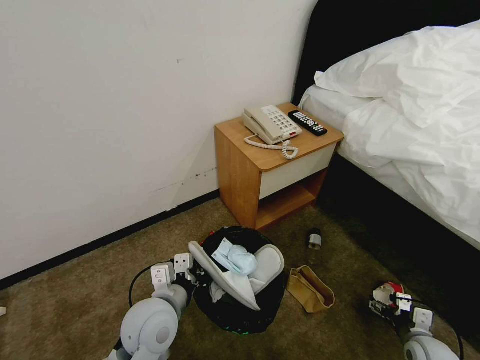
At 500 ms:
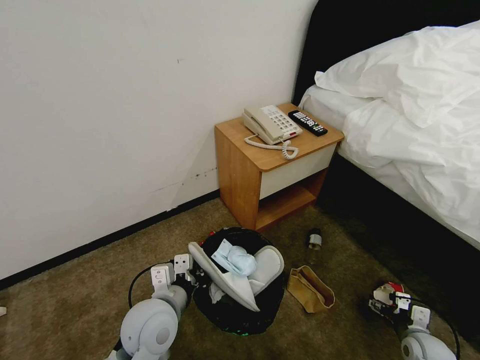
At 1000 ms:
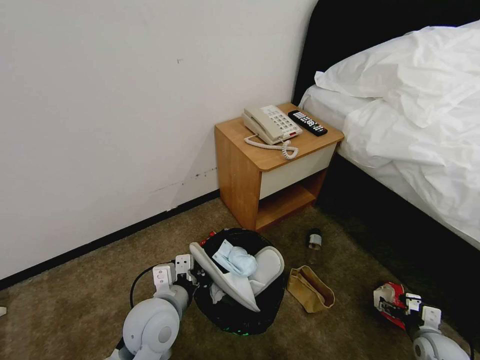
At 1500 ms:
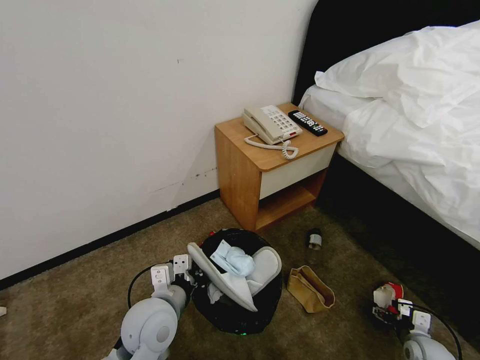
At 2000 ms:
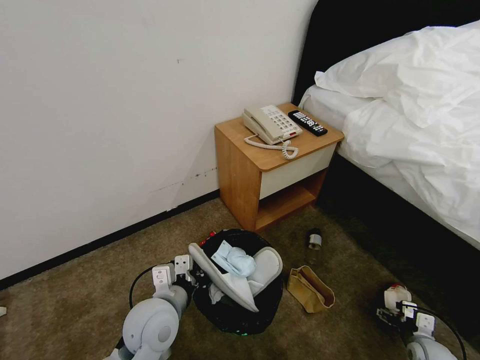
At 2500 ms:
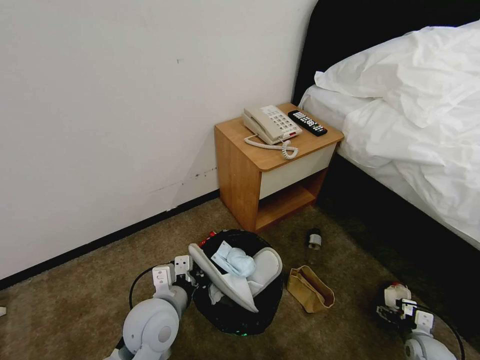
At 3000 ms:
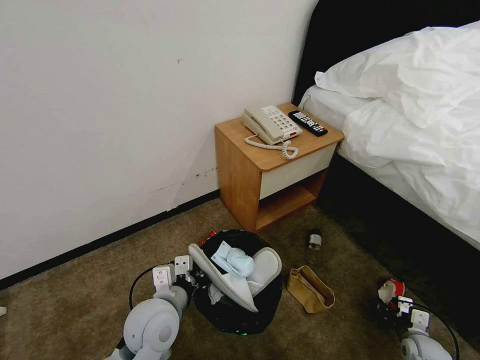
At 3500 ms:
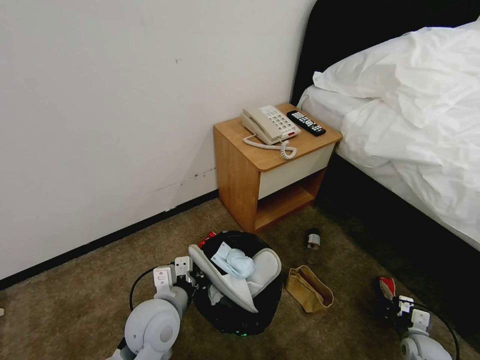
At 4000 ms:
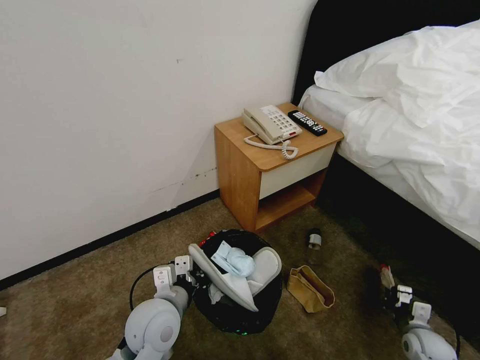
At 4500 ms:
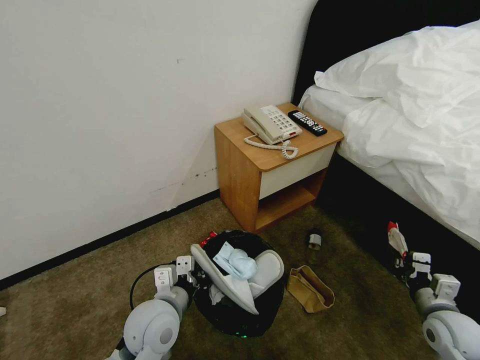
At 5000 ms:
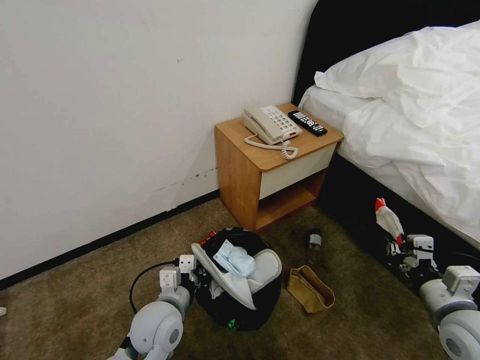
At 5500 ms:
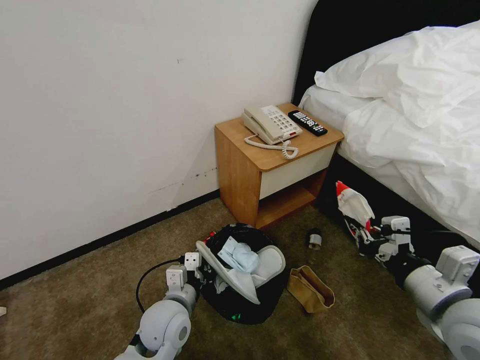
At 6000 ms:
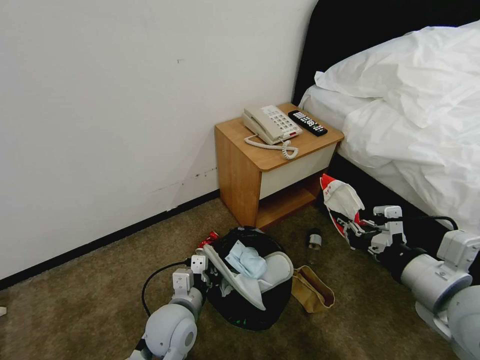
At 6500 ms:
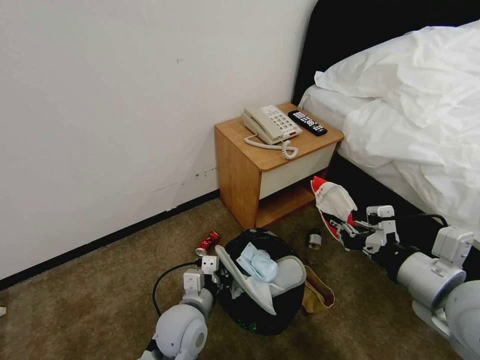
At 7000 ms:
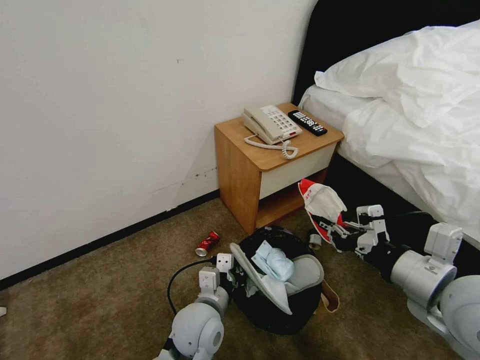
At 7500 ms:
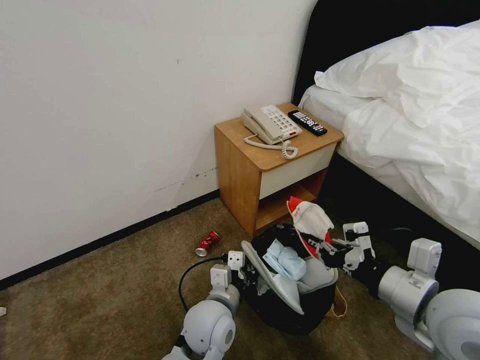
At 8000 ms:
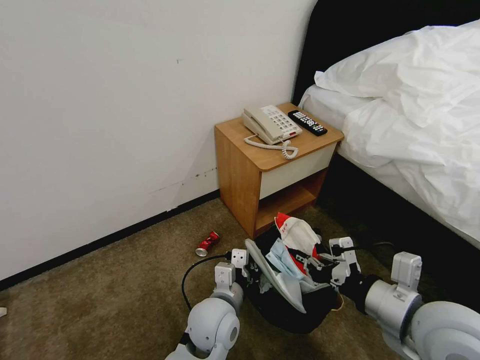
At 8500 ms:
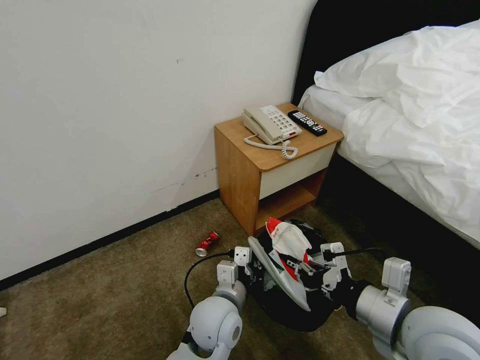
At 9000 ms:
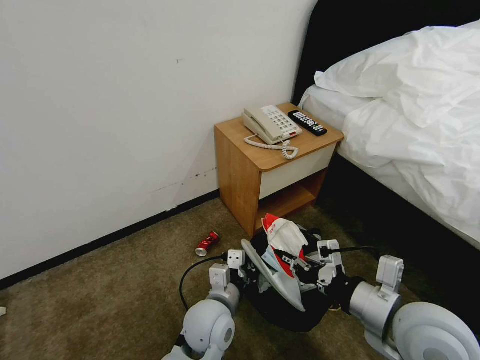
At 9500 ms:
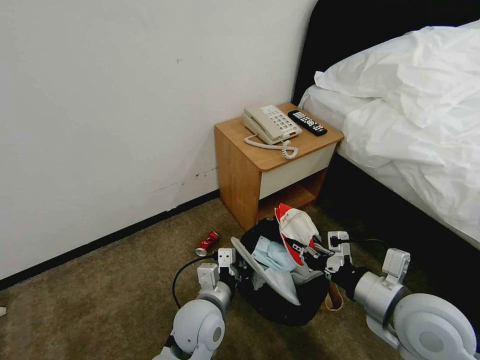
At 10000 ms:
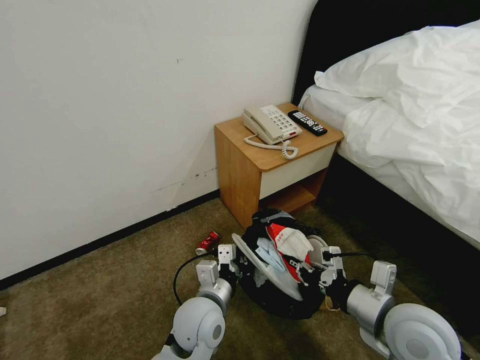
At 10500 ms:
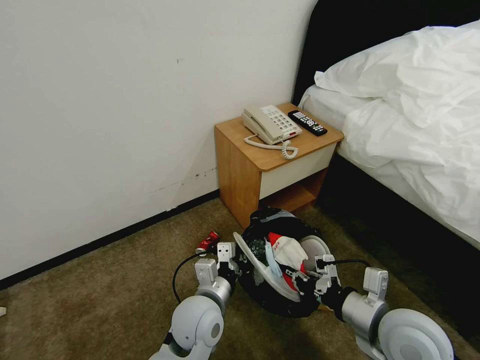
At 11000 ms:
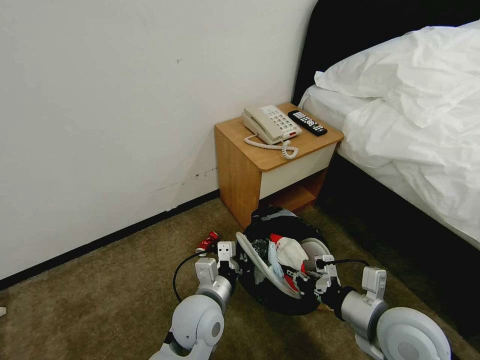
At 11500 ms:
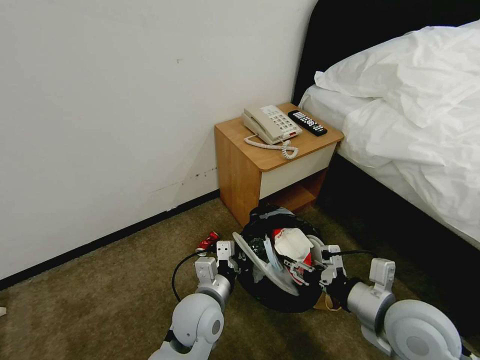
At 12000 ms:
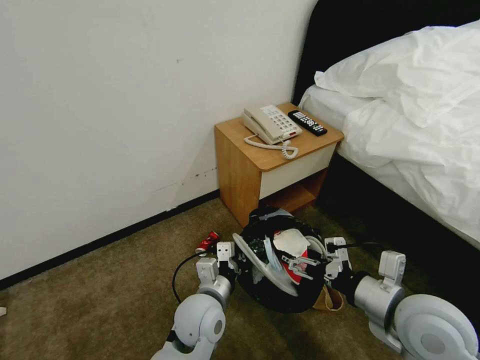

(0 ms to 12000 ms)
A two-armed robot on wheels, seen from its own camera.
Task of the whole recording: Pick up the trash bin, then pick up the garbage from the floor and place it into the trash bin.
0 ms - 2000 ms: The right gripper shifts by approximately 5 cm.
2000 ms - 4000 ms: The right gripper closes up.
4000 ms - 6000 ms: The right gripper shifts approximately 40 cm upward and to the left.
6000 ms - 8000 ms: The left gripper moves to the right, about 10 cm.
8000 ms - 10000 ms: The right gripper moves downward, about 5 cm.
10000 ms - 12000 ms: The right gripper opens up.

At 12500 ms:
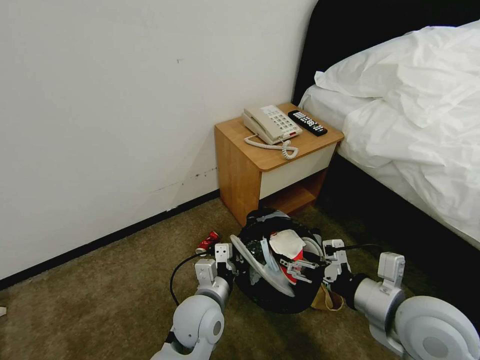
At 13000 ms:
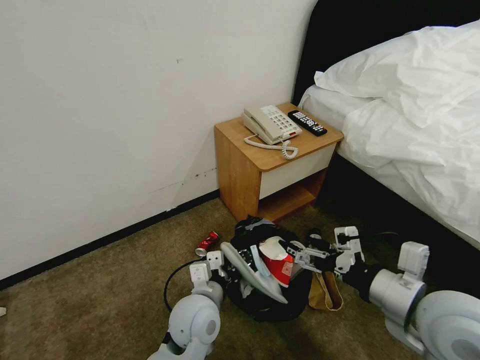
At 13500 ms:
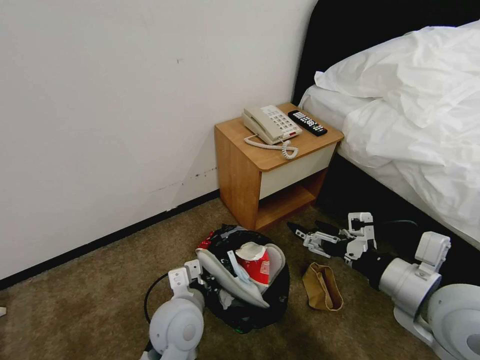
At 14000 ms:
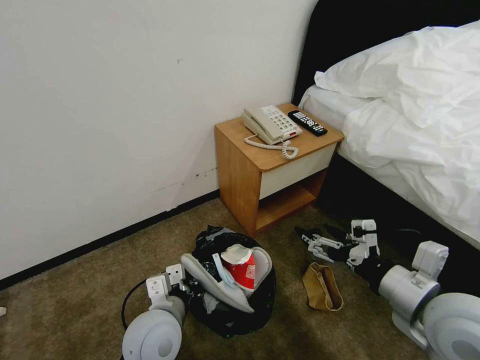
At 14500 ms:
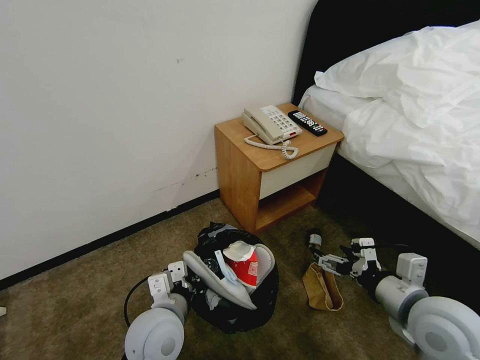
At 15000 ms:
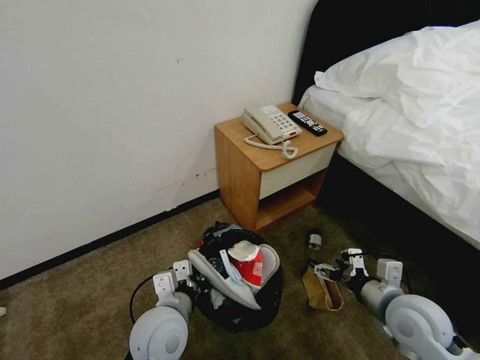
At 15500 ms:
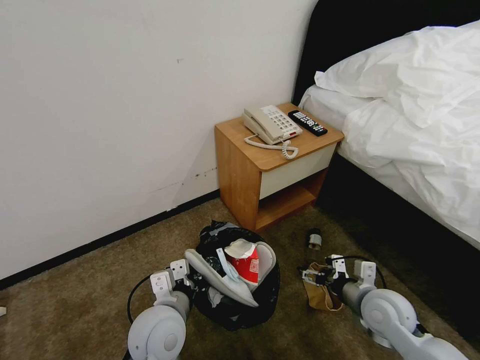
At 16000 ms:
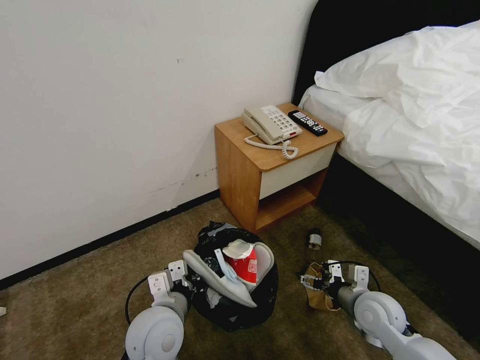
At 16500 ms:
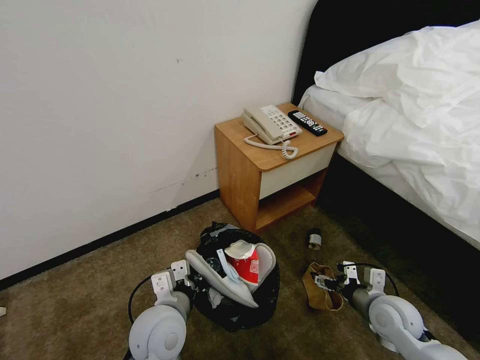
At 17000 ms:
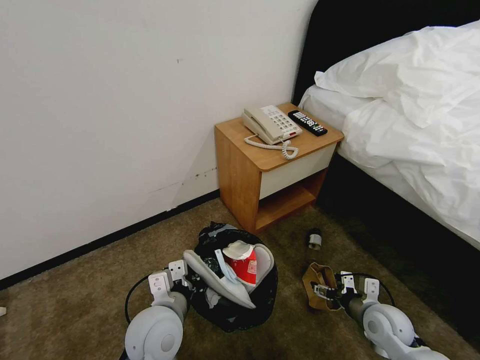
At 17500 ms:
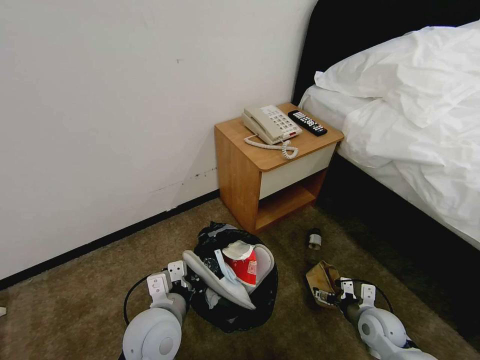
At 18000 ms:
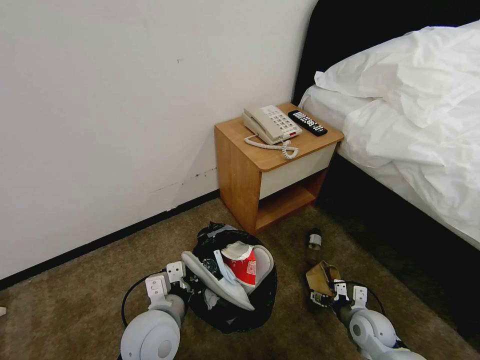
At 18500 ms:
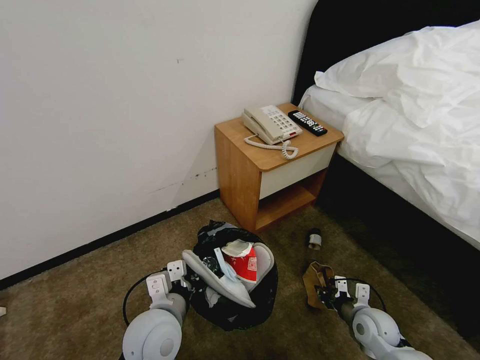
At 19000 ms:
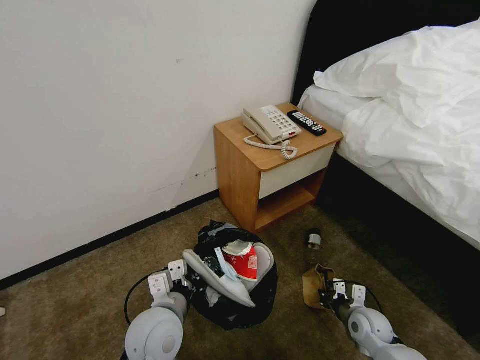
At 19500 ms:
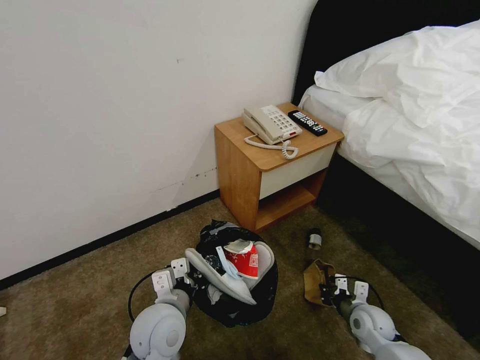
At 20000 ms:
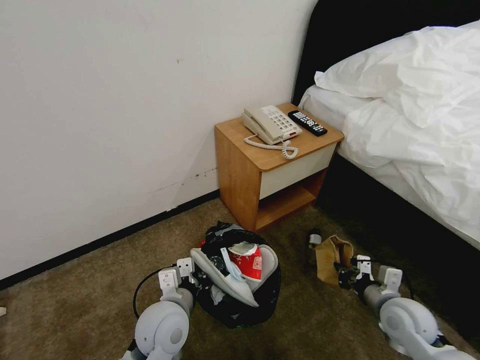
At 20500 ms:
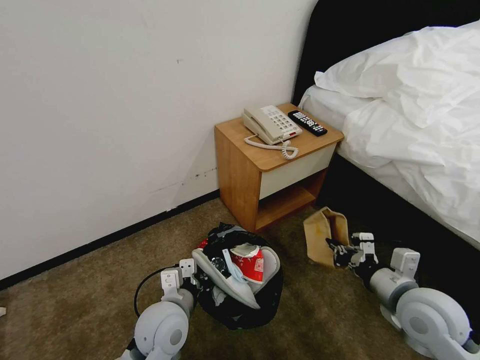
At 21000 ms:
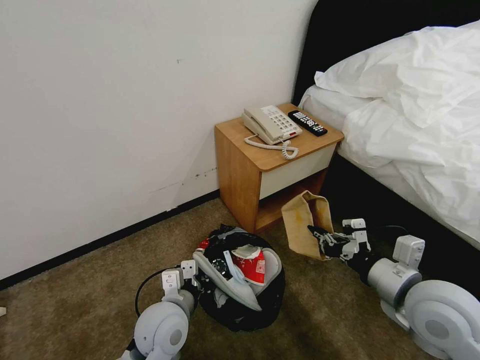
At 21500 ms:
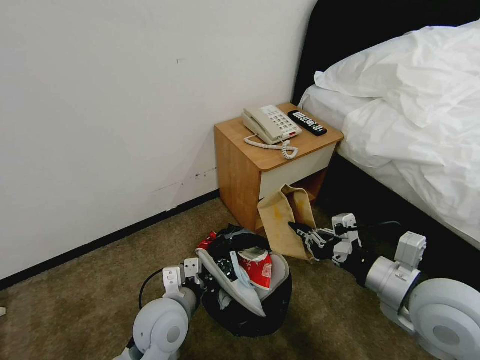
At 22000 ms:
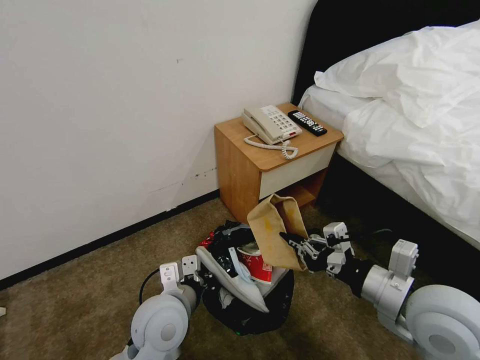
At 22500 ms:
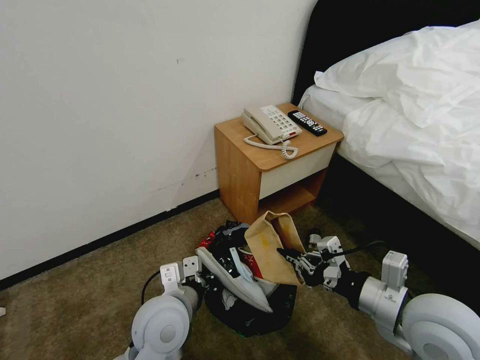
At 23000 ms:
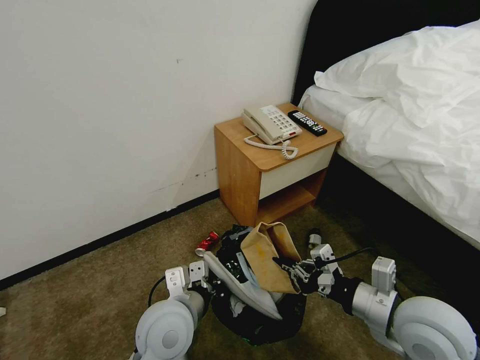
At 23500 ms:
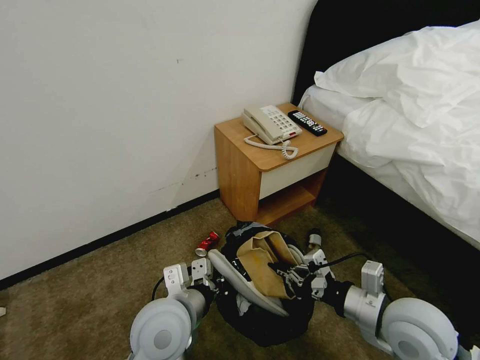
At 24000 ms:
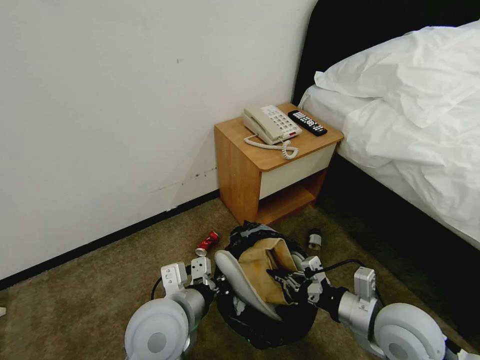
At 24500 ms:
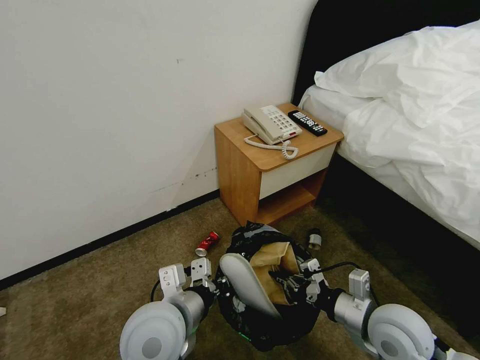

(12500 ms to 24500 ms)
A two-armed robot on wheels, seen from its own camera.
Task of the whole recording: Pick up the trash bin, then pick up the garbage from the floor and place it into the trash bin.
12500 ms - 14500 ms: The right gripper travels upward and back again, some 5 cm each way. The left gripper shifts about 5 cm to the left.
14500 ms - 16500 ms: The right gripper is displaced downward by approximately 15 cm.
16500 ms - 18500 ms: The right gripper heads downward, covering roughly 10 cm, and closes its fingers.
18500 ms - 20500 ms: The right gripper moves upward, about 20 cm.
20500 ms - 22500 ms: The left gripper shifts by approximately 5 cm; the right gripper travels upward by approximately 5 cm.
22500 ms - 24500 ms: The right gripper is displaced downward by some 10 cm.

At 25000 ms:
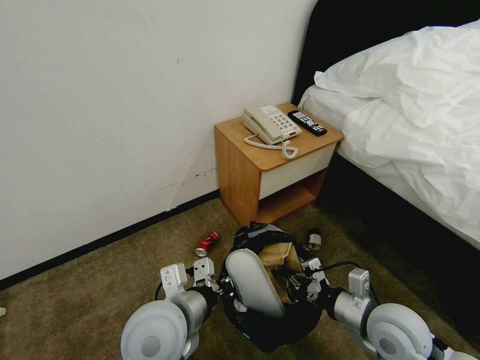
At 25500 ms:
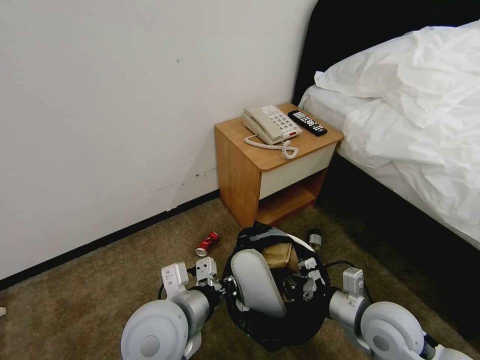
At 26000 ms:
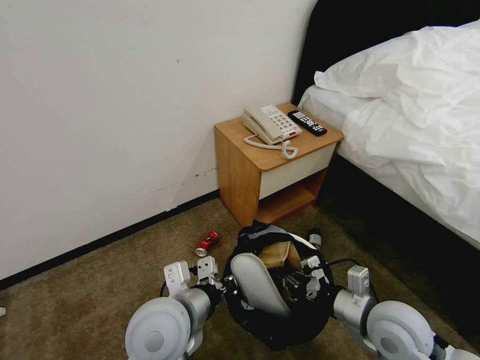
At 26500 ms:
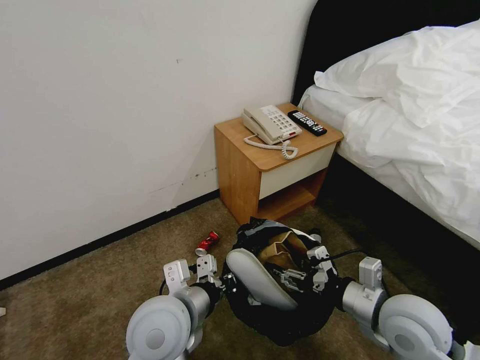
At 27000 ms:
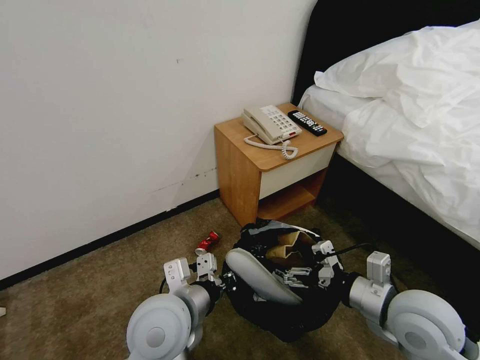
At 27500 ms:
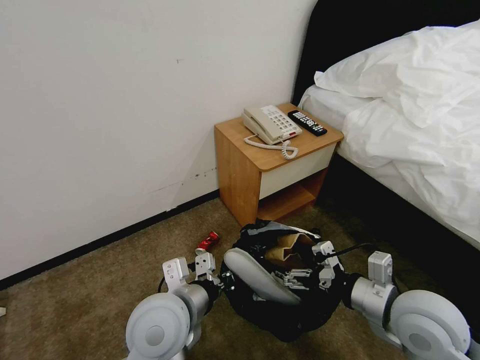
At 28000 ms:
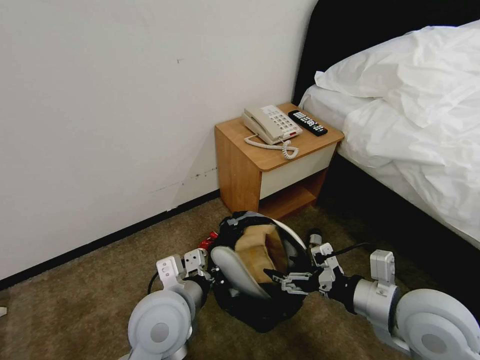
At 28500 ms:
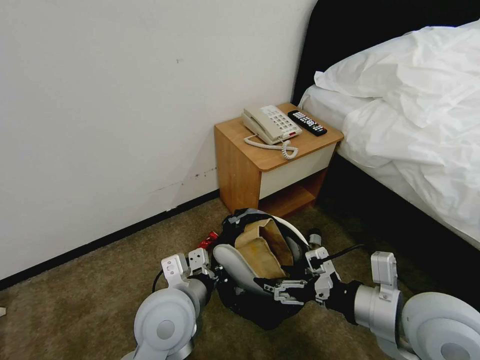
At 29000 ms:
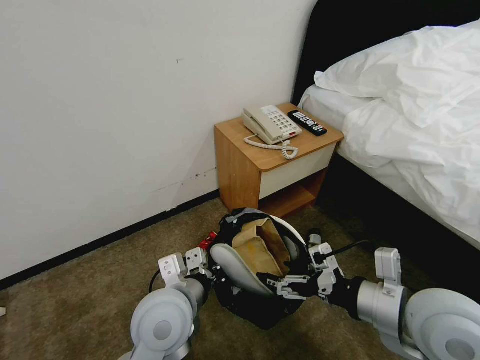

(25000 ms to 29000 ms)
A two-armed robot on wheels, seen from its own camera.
Task of the whole recording: Pick up the trash bin, then pick up the garbage from the floor and place it into the trash bin.
25000 ms - 27000 ms: The right gripper travels upward by some 5 cm, and opens.
27000 ms - 29000 ms: The right gripper heads upward, covering approximately 5 cm.
